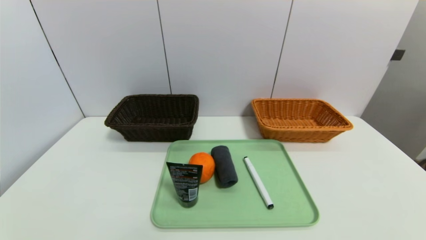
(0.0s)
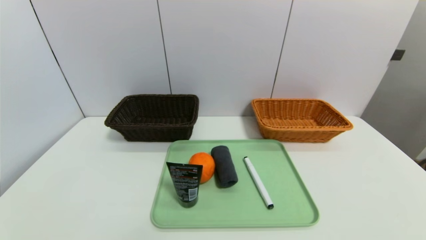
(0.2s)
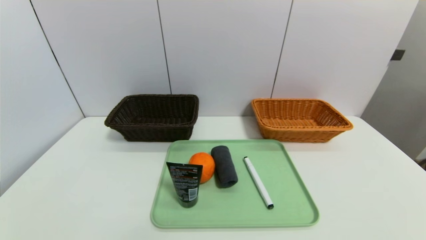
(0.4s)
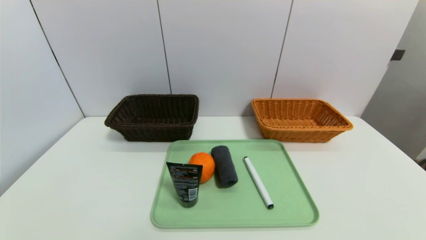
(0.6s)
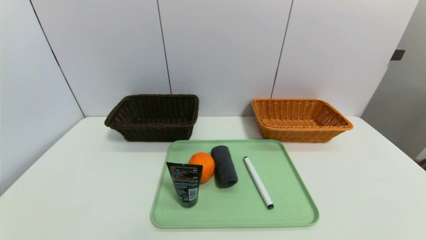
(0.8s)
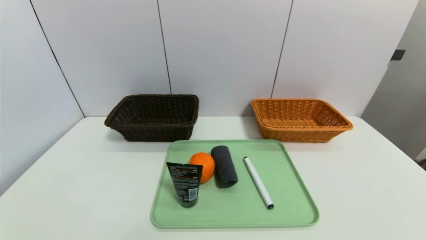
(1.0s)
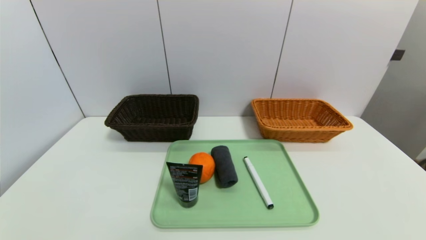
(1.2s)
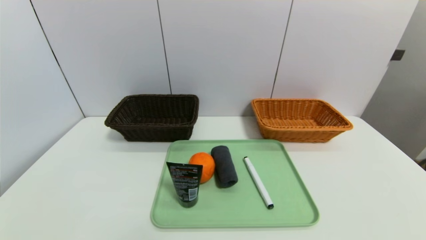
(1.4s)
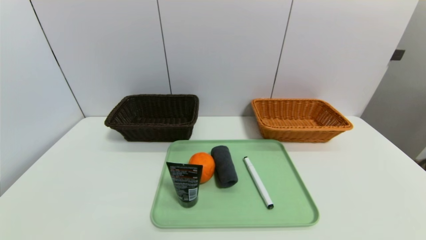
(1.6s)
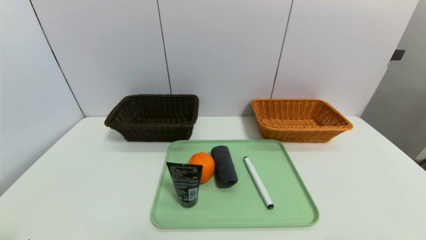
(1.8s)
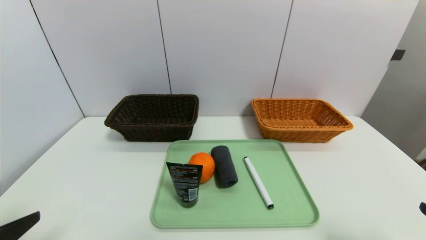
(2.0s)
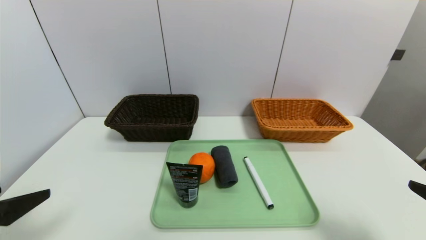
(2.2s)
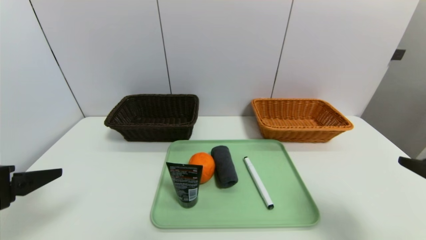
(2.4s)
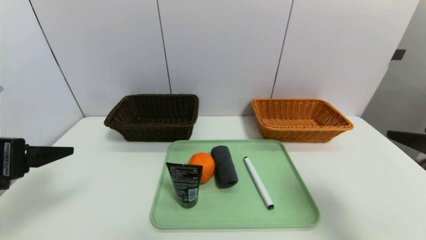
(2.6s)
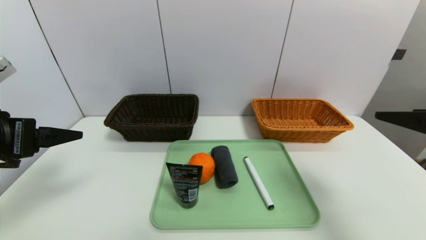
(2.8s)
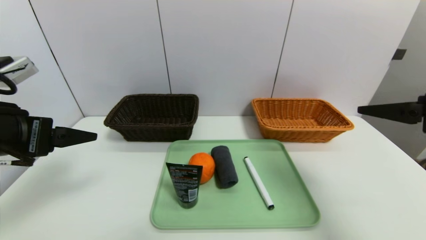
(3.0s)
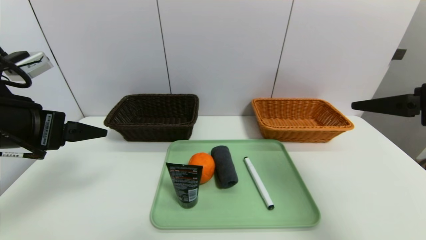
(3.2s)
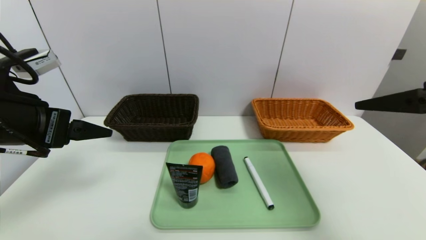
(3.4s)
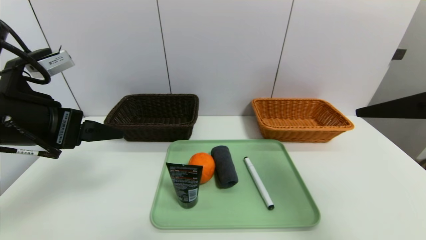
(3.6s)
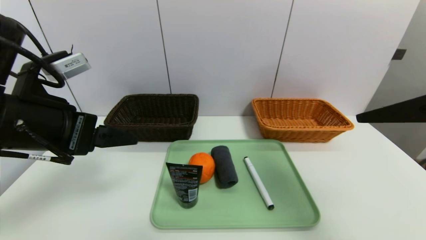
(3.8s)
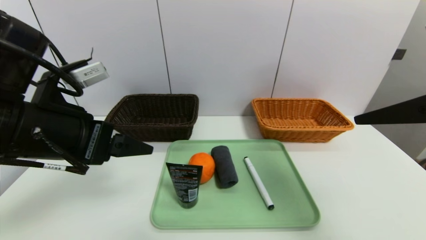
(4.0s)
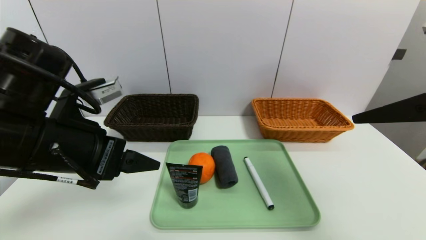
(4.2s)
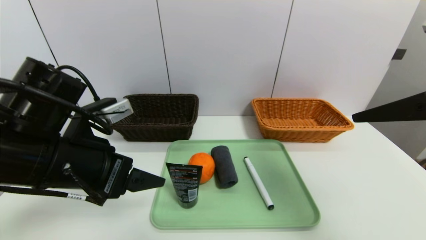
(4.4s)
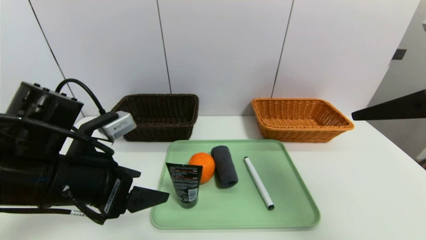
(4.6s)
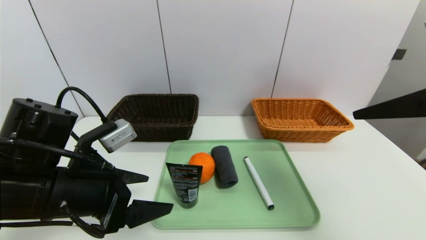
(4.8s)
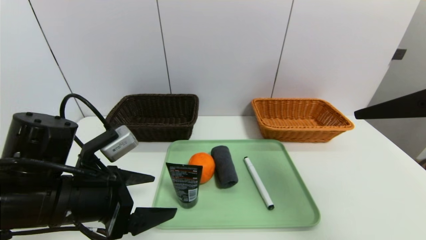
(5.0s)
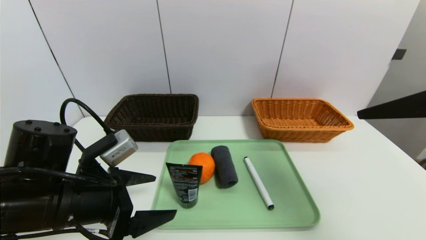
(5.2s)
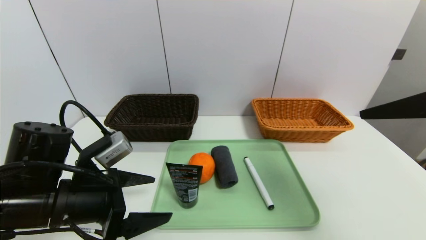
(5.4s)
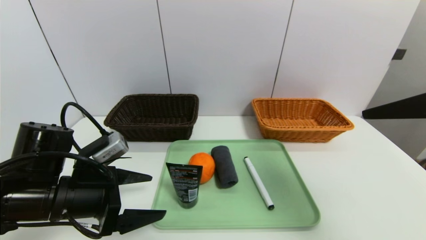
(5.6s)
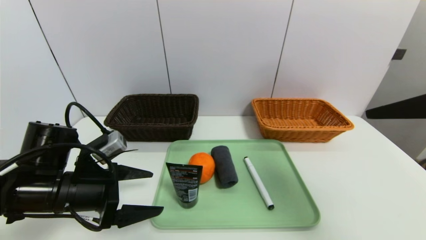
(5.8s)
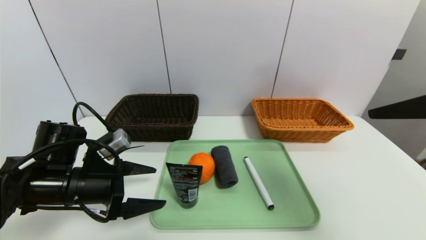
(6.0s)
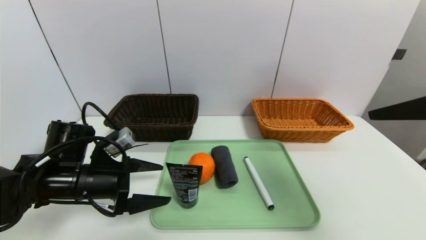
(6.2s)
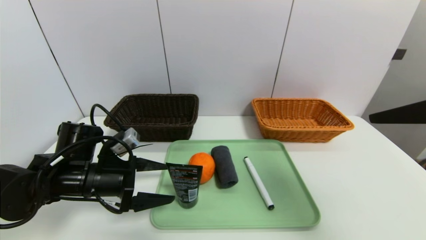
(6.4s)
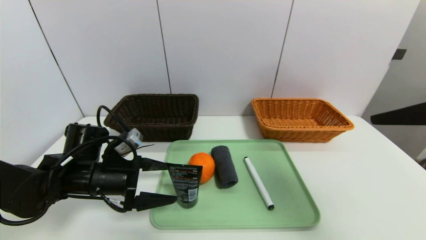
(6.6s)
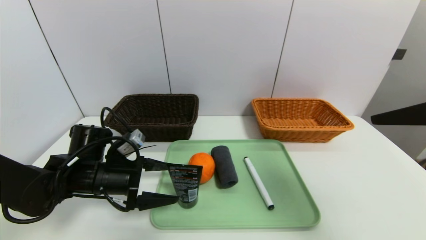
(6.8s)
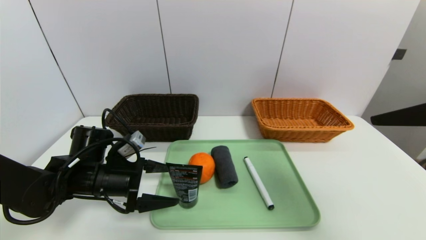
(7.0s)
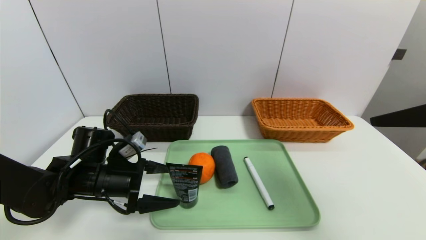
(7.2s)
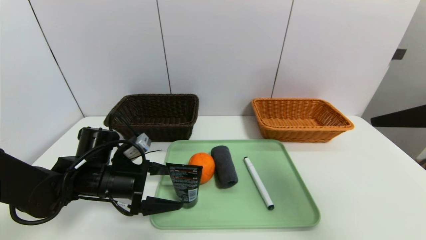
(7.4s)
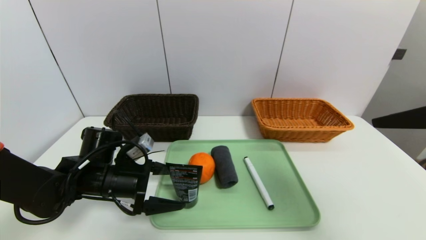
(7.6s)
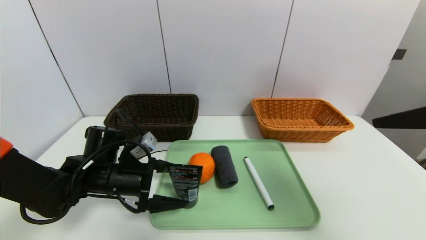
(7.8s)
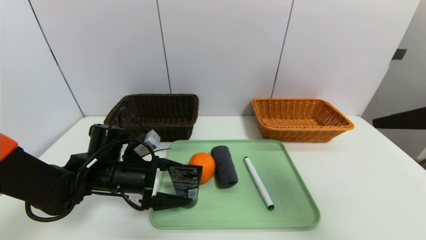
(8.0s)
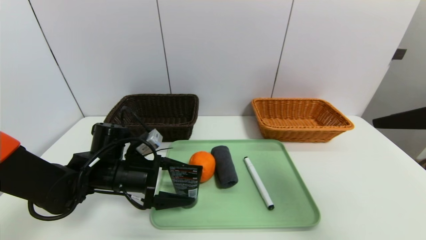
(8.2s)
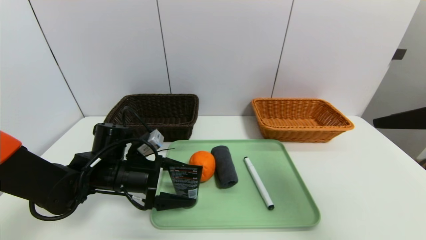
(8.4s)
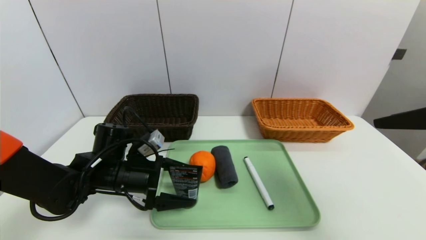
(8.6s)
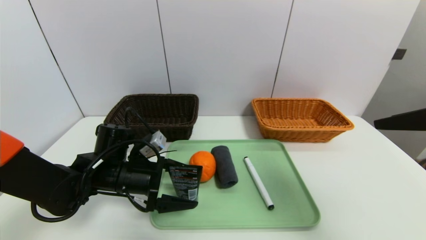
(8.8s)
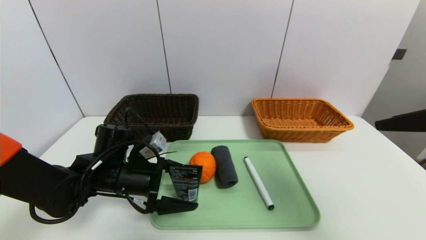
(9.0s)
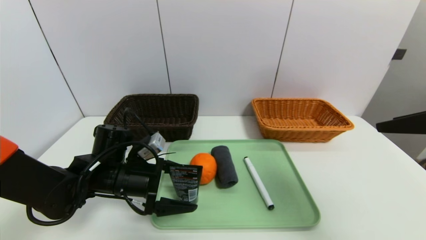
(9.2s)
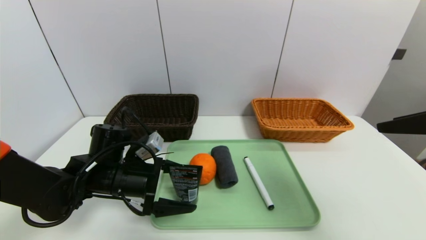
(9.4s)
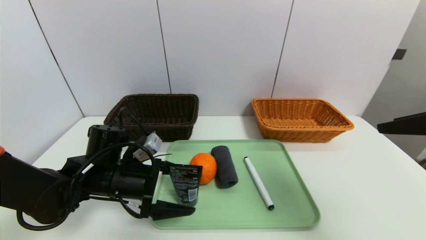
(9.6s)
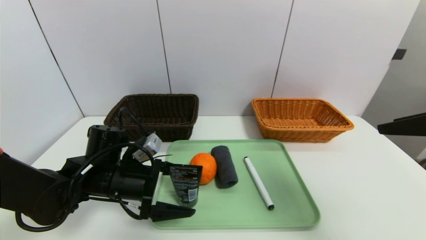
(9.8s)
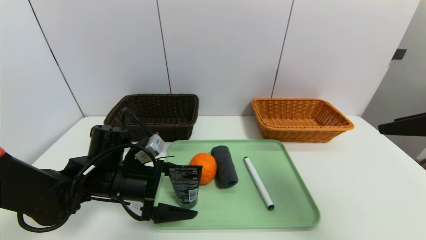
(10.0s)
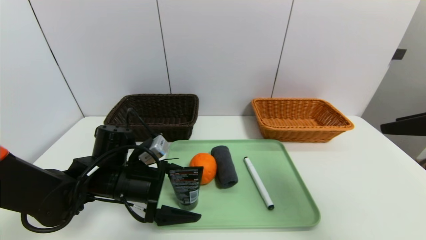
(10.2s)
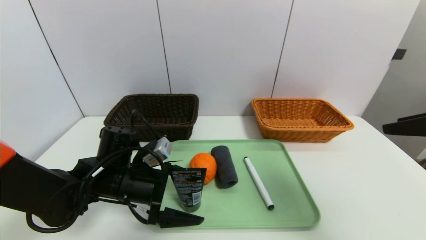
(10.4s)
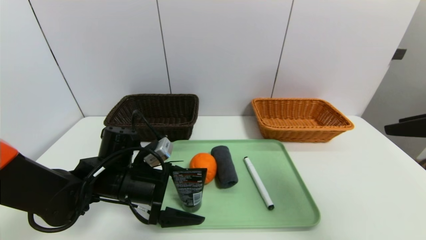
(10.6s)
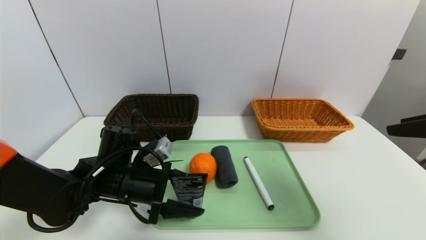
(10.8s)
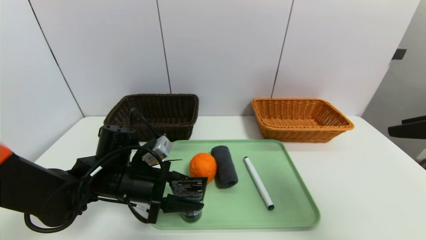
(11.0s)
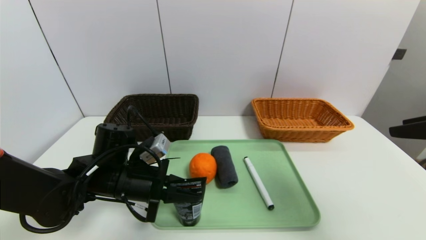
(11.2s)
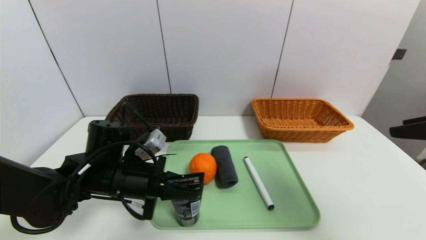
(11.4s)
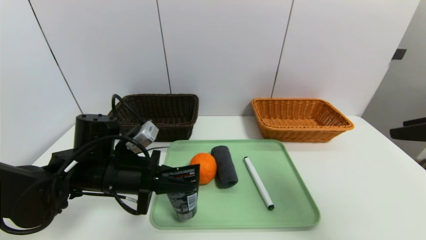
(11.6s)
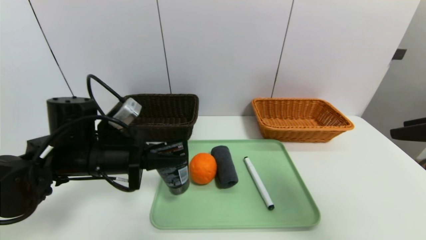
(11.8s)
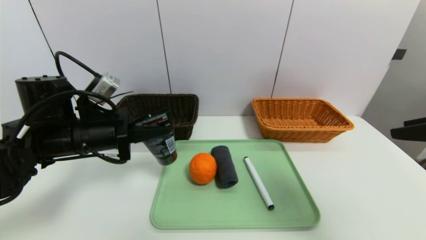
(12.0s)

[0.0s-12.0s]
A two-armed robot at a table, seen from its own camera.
Task of the whole recording: place the food in the right basket with the right gripper, and place the non food items in the left basket with the left gripper.
1.6s to 3.0s: Both grippers travel together forward and upward, roughly 25 cm.
3.0s to 4.4s: The left gripper travels to the right by about 10 cm.
4.4s to 6.0s: The left gripper goes approximately 10 cm downward.
6.0s to 7.6s: The left gripper moves about 5 cm.
7.6s to 10.4s: The grippers stay close to where they were, moving slightly.
10.4s to 12.0s: The left gripper goes approximately 10 cm upward and to the left, and closes.

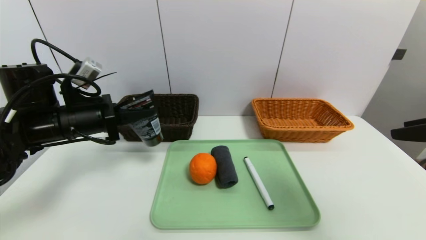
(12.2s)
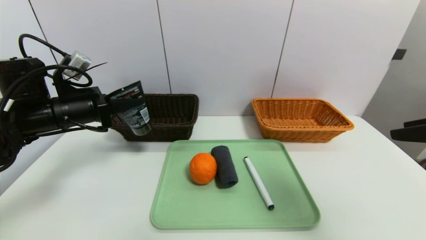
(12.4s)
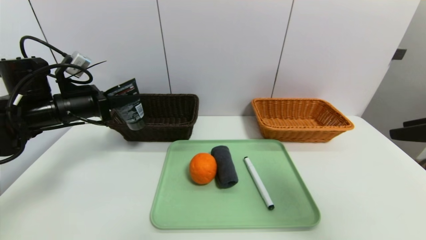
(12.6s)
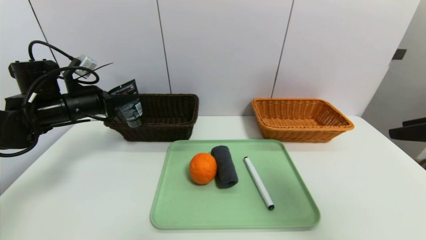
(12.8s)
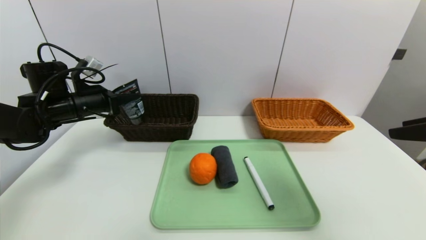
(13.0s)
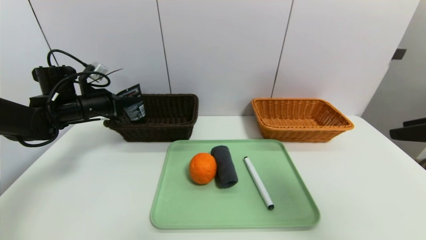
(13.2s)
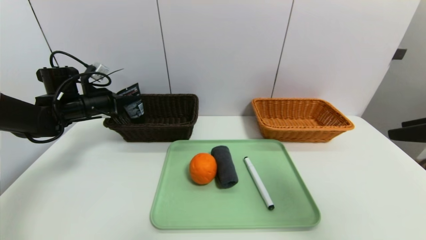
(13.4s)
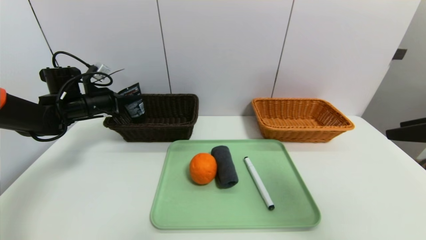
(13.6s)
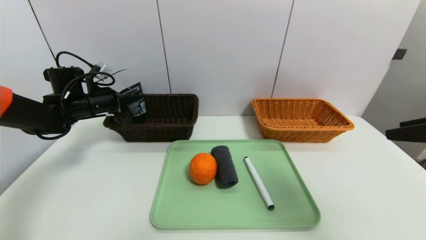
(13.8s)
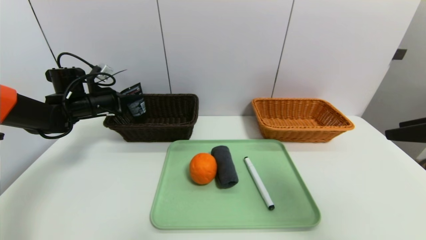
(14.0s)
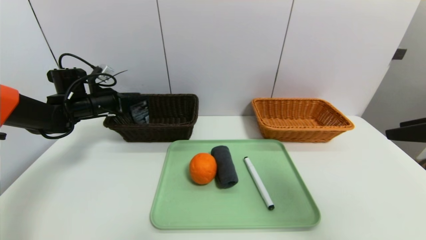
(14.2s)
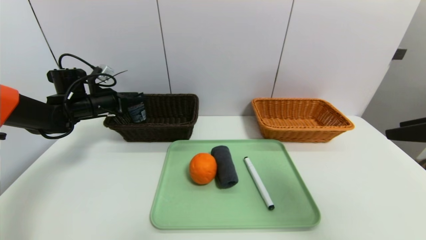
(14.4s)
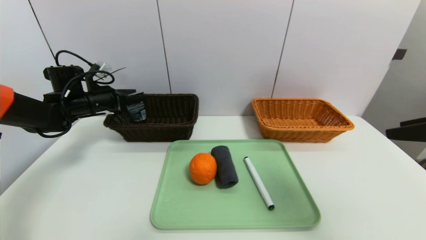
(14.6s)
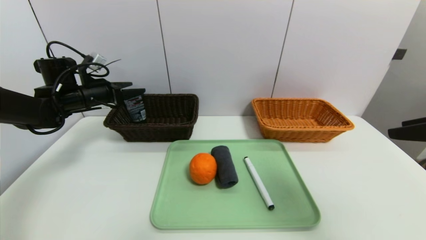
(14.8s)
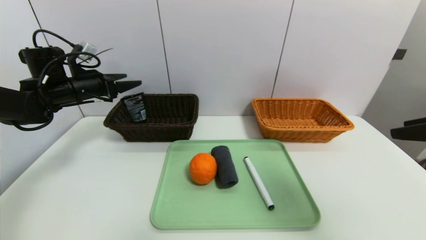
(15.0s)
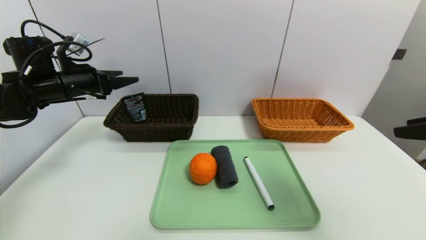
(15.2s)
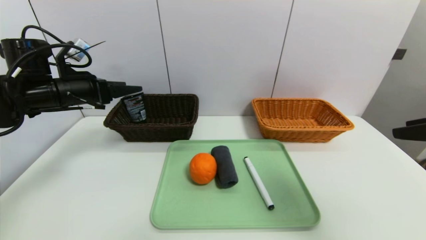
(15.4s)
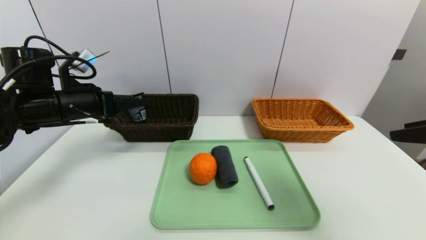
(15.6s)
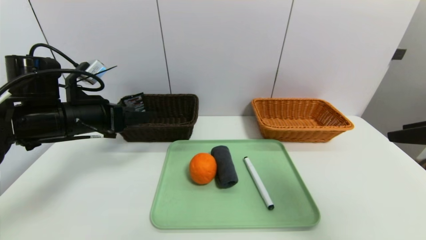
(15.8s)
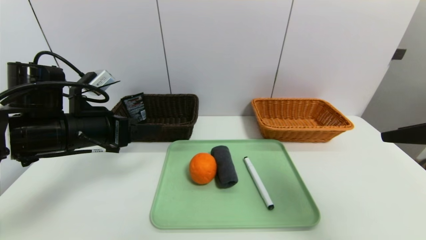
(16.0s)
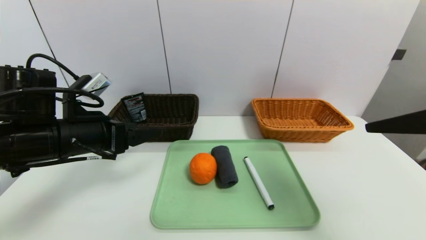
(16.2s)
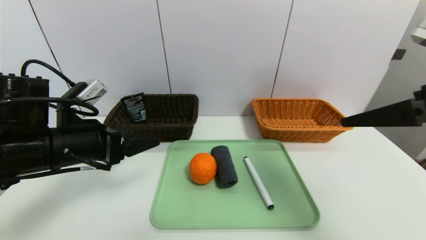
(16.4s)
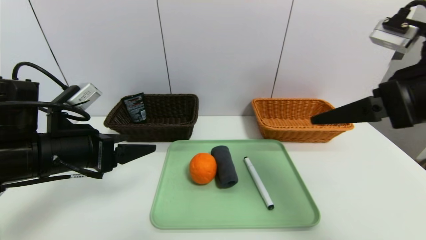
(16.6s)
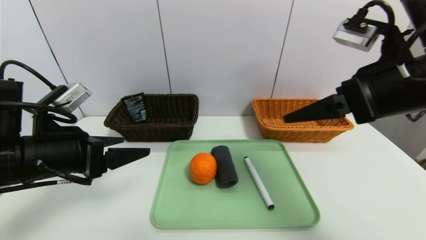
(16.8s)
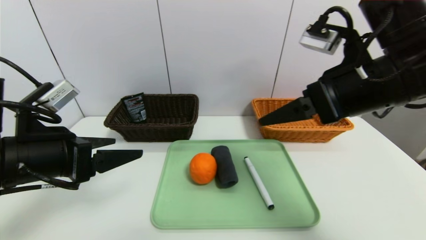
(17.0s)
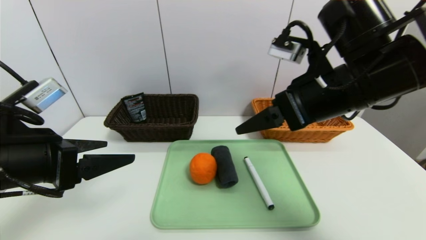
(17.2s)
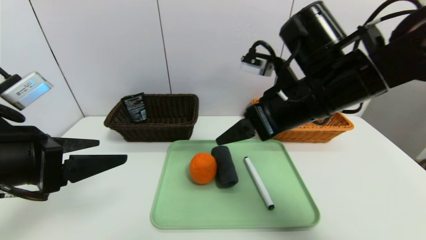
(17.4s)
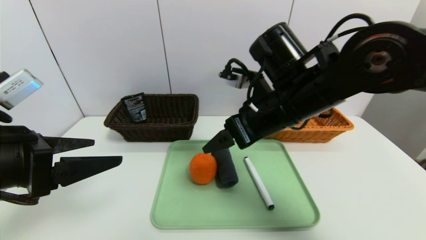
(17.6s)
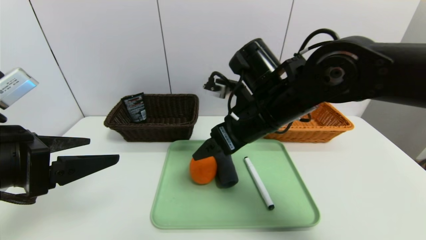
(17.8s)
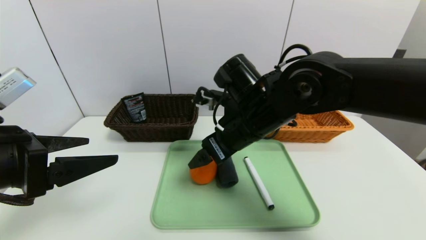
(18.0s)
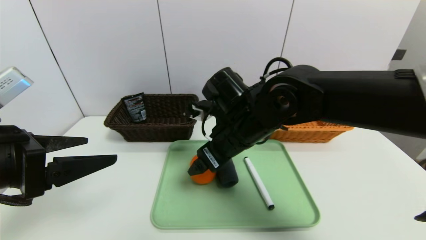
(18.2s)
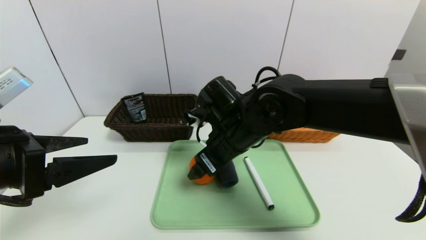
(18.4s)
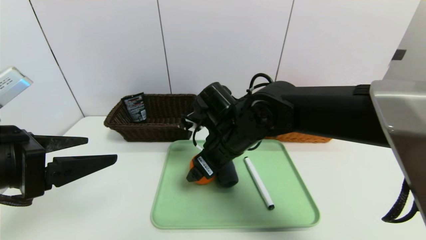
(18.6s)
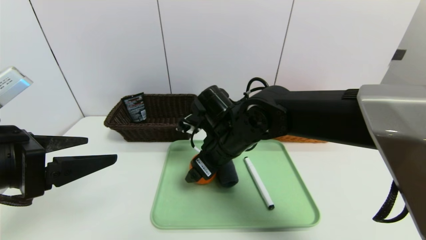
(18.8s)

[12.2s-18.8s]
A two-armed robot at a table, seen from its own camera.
Task of the whole recording: place the food in the right basket with the right gripper, and place the non food items in the left basket with the left gripper.
Step, 12.2s to 15.2s: Grasp the soft cleanser and put it in the left basket.
12.2s to 13.8s: The left gripper shifts approximately 15 cm forward and to the left.
13.8s to 15.4s: The left gripper travels backward and upward by about 10 cm, and opens up.
15.4s to 17.2s: The left gripper is displaced backward by some 20 cm, while the right gripper heads to the left and forward, covering roughly 20 cm.
17.2s to 18.8s: The right gripper heads to the left and downward, covering approximately 20 cm.
